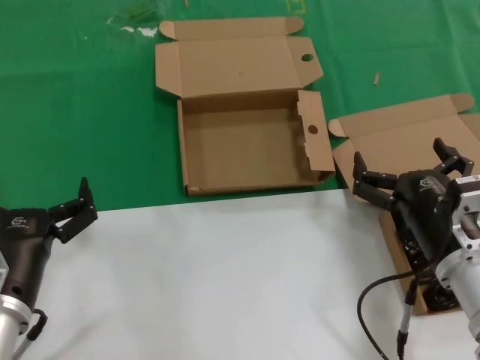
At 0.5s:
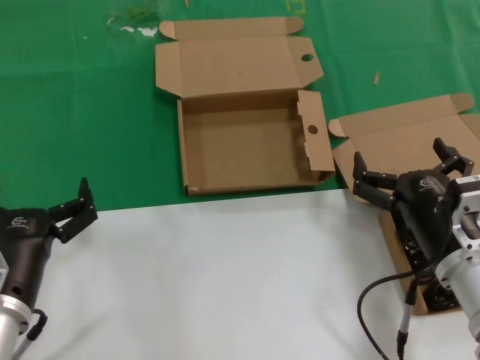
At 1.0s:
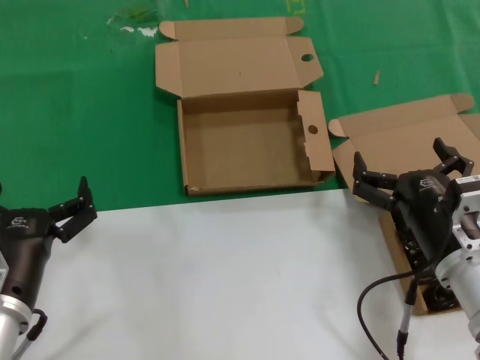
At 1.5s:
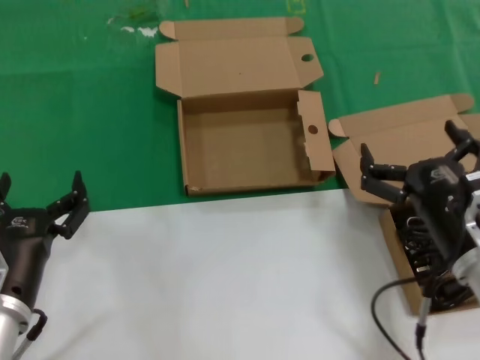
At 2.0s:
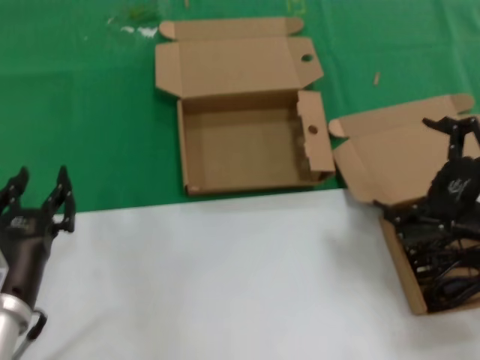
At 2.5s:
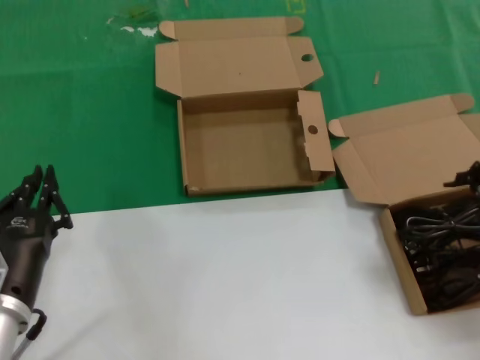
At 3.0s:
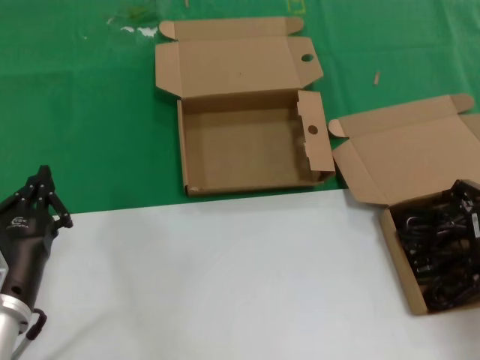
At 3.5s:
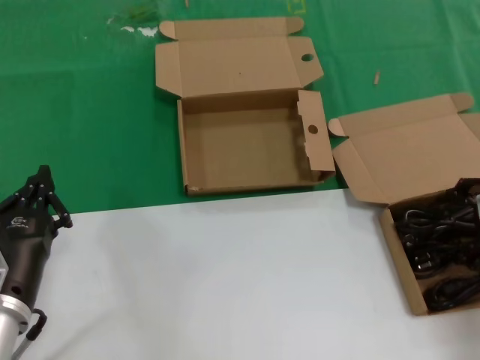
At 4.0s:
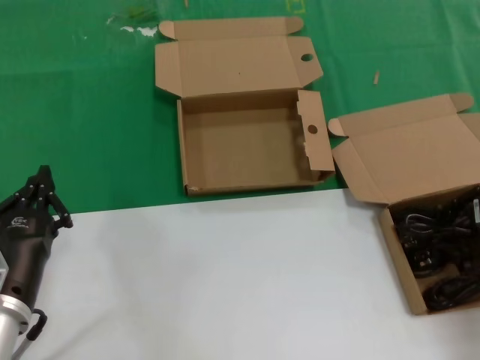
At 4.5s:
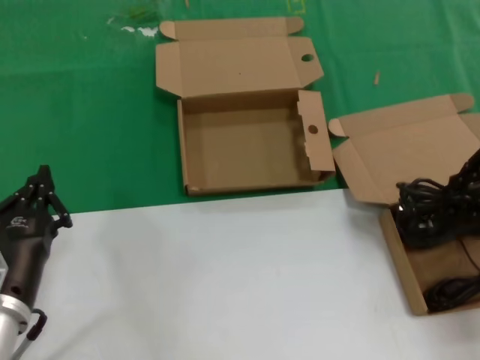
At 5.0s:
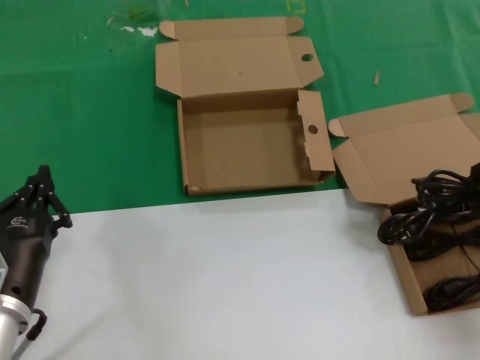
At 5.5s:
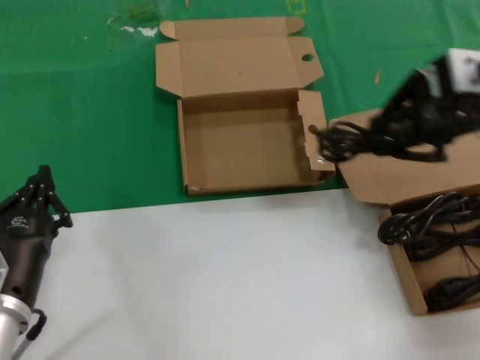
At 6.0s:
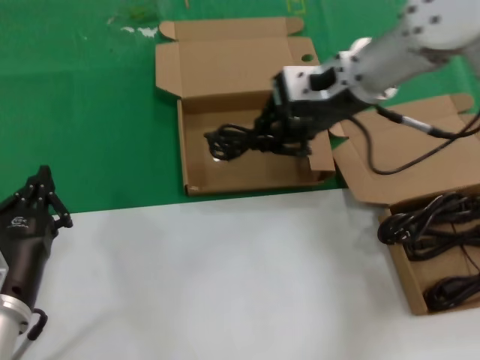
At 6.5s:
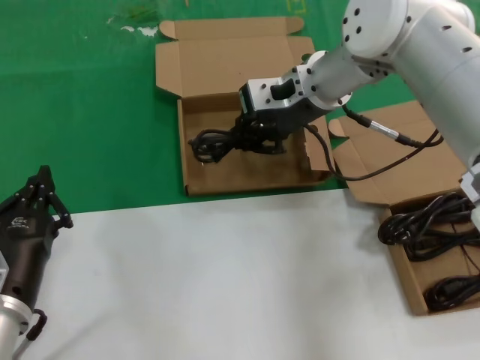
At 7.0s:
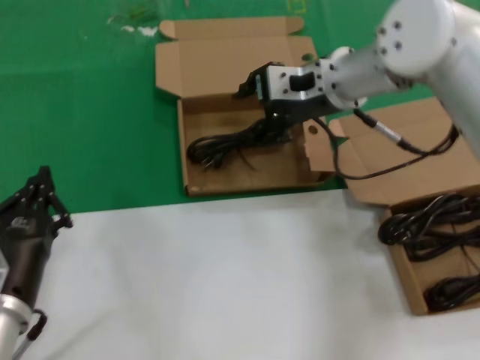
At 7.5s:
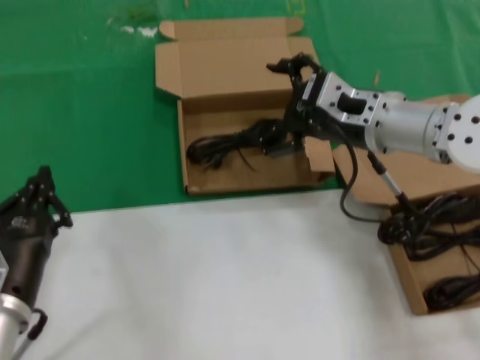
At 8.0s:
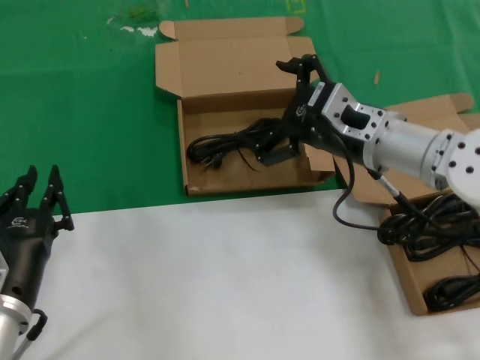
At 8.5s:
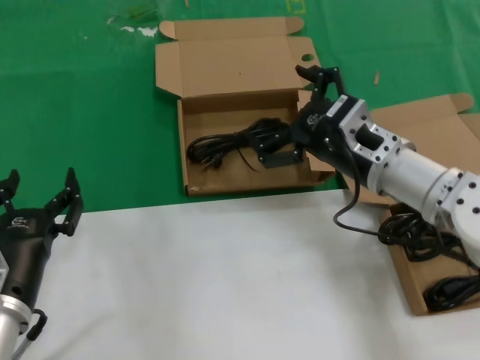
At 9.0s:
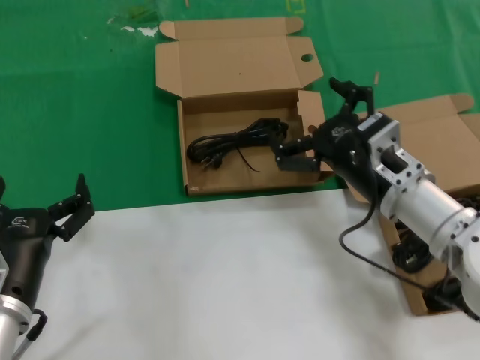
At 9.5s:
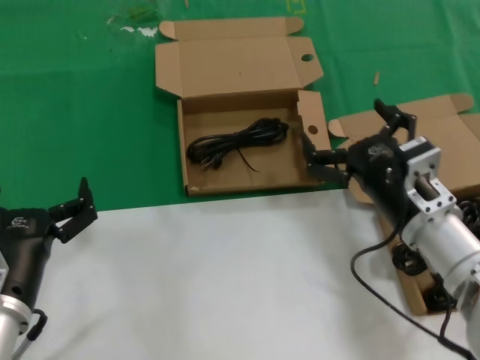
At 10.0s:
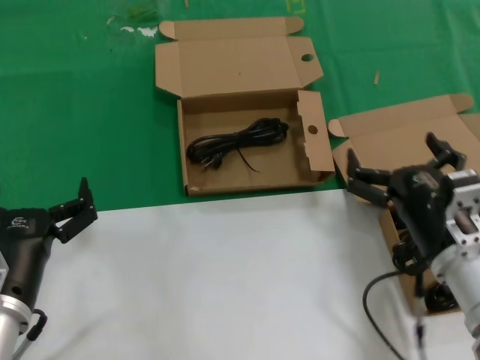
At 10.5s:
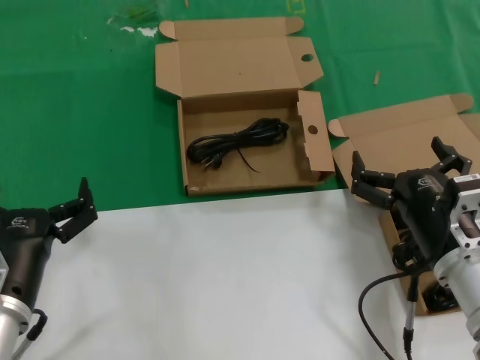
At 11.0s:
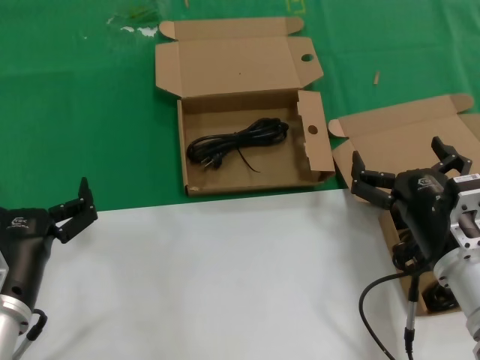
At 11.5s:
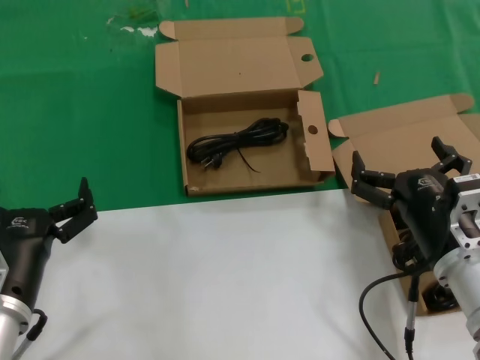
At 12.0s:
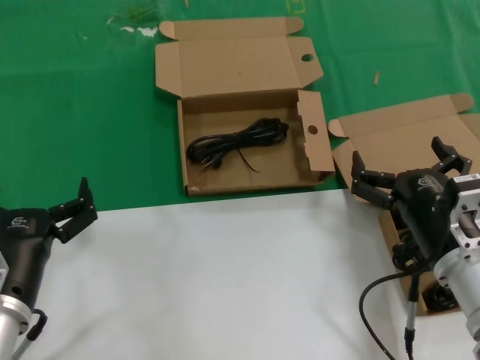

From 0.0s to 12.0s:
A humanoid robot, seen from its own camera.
Task of the whole recording: take the parts from the box containing them and put them into an empty box.
Step, from 0.0s to 3.5s: Grasp the data cable.
Step, from 4.0s to 7.0s: Place the data cable in the another box.
From 0.0s to 2.0s: The right hand travels upward and to the right by about 15 cm.
From 2.0s to 4.0s: The right hand shifts about 15 cm forward and to the right.
From 4.0s to 6.0s: The right hand heads to the left, upward and forward, covering approximately 30 cm.
From 6.0s to 8.0s: The right hand travels downward by approximately 10 cm.
From 8.0s to 10.0s: The right hand heads backward and downward, covering about 15 cm.
From 10.0s to 12.0s: Both hands stay about where they are.

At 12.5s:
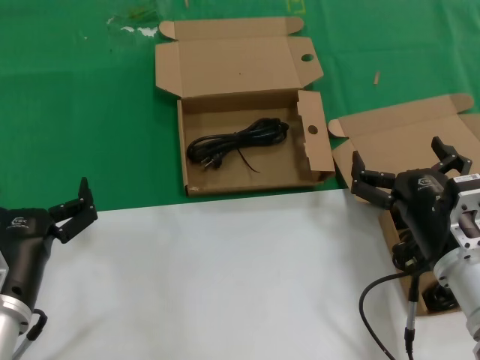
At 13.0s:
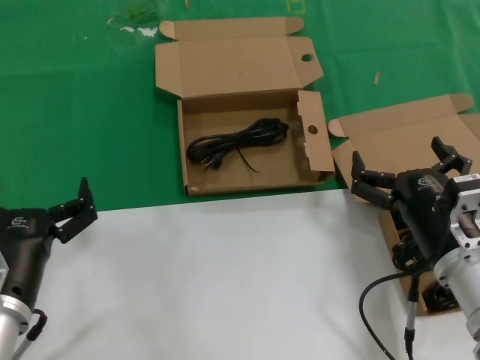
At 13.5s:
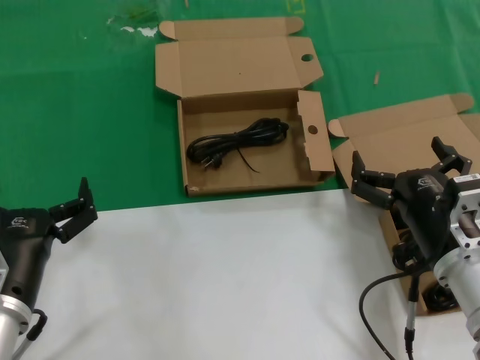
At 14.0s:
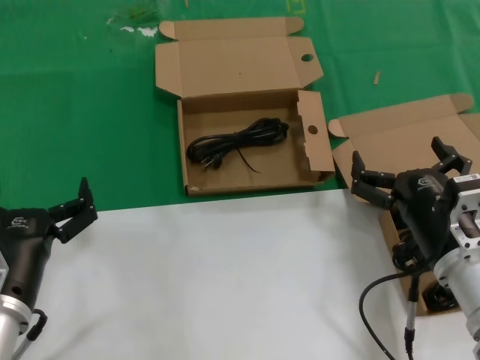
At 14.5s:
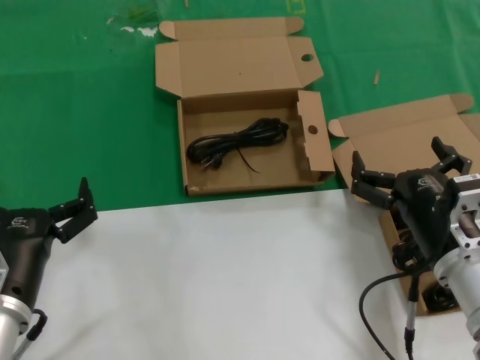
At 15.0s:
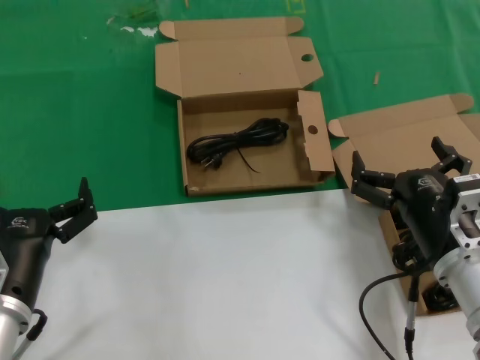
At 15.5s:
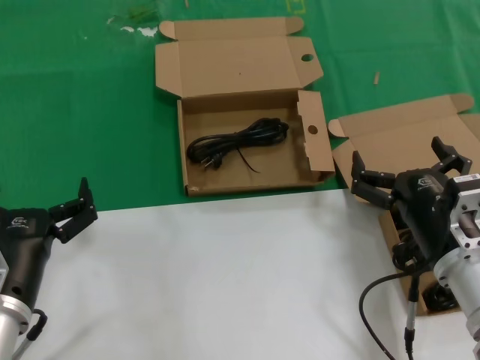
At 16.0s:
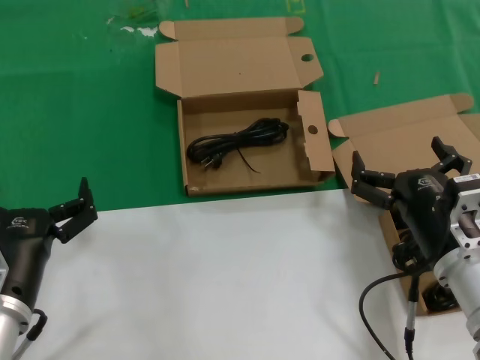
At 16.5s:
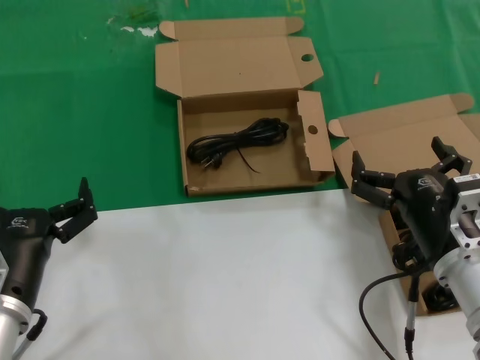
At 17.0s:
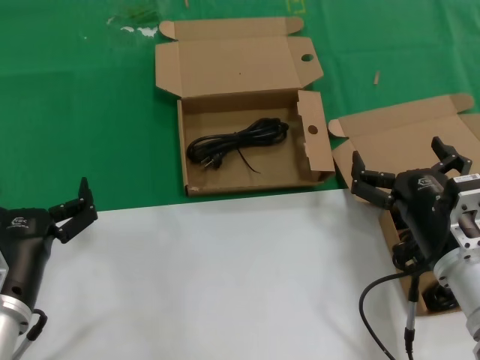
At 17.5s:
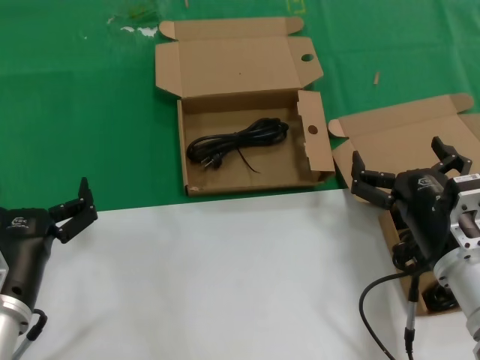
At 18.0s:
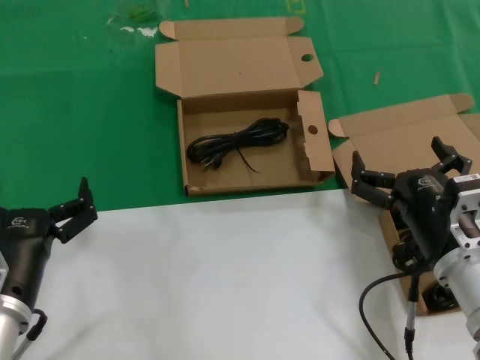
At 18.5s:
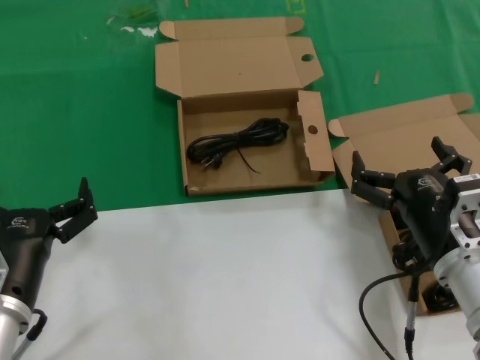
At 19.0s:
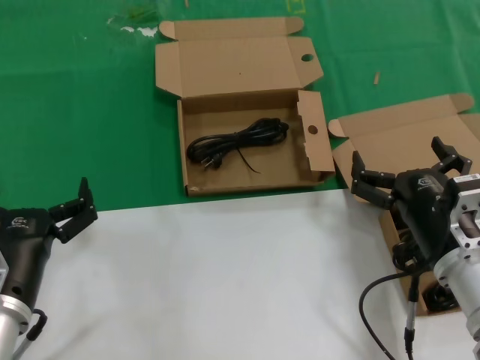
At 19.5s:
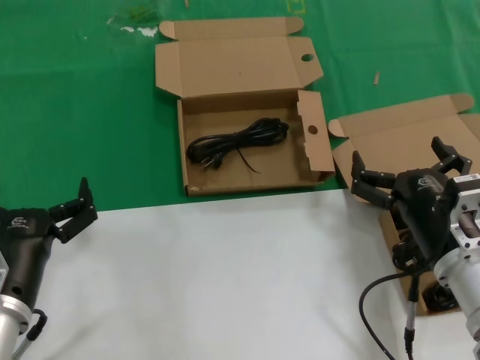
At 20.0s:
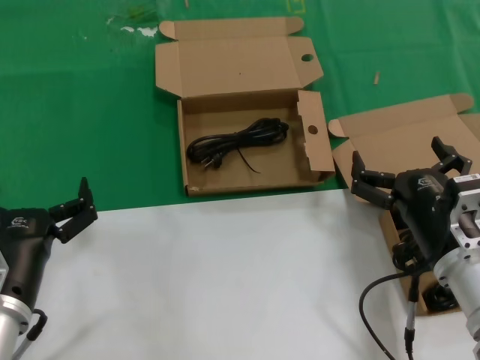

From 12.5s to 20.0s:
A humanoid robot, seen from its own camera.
Task of the whole recording: take the parts from the box containing them and put them into an empty box.
From 12.5s to 20.0s: Both hands stay put.

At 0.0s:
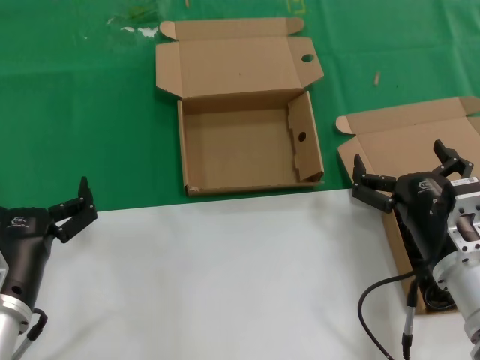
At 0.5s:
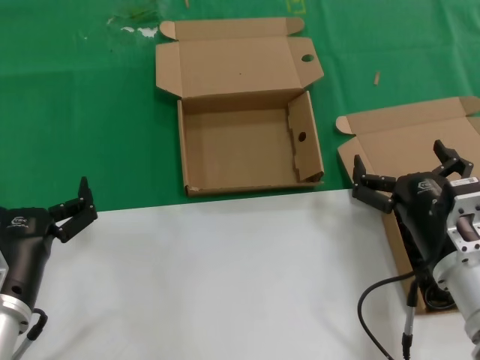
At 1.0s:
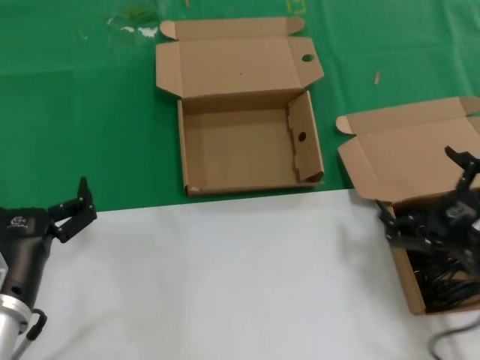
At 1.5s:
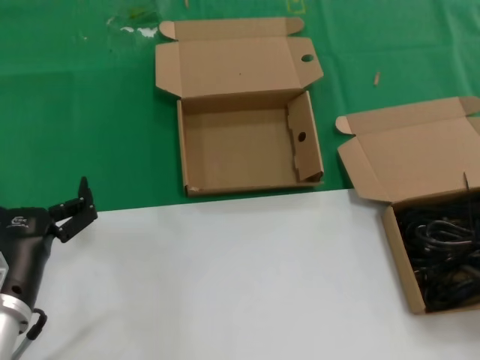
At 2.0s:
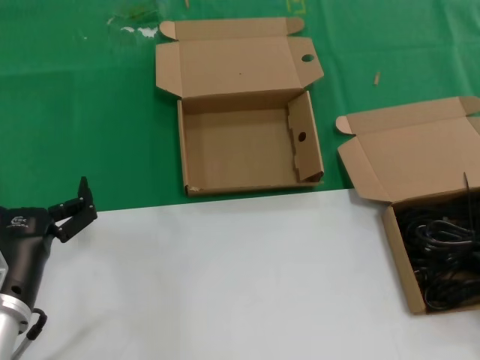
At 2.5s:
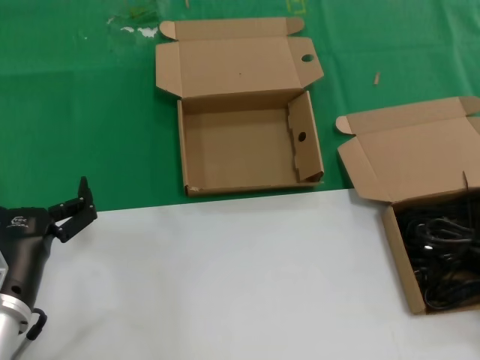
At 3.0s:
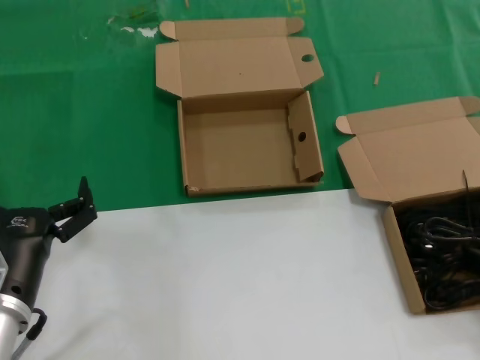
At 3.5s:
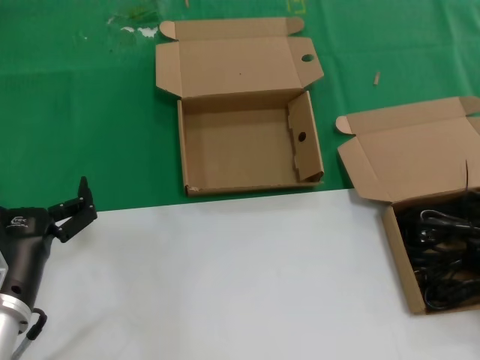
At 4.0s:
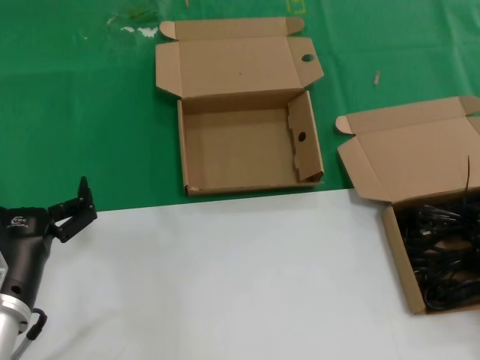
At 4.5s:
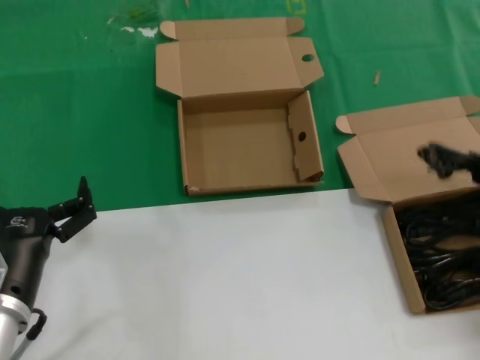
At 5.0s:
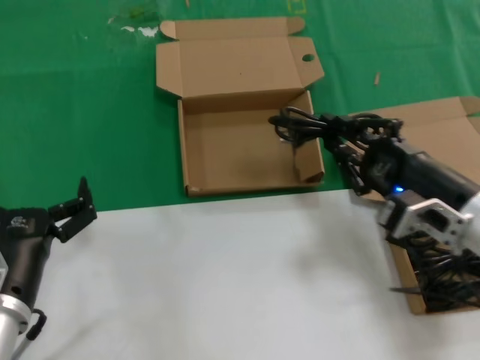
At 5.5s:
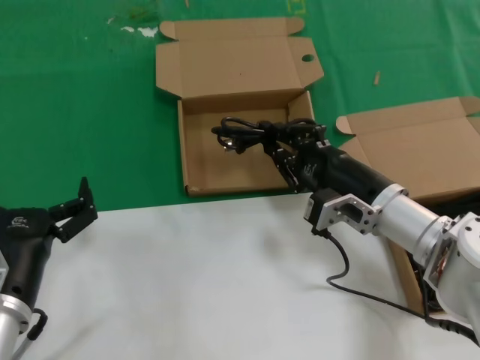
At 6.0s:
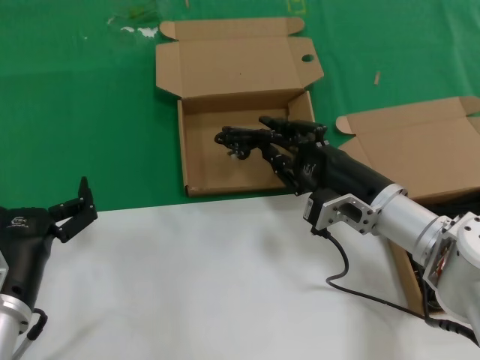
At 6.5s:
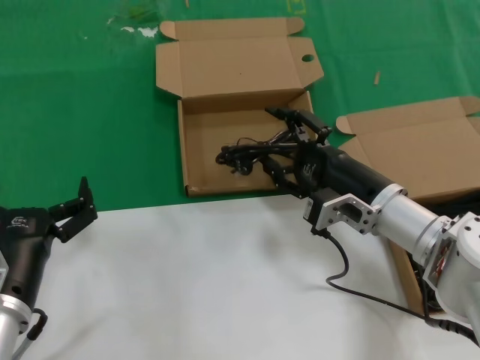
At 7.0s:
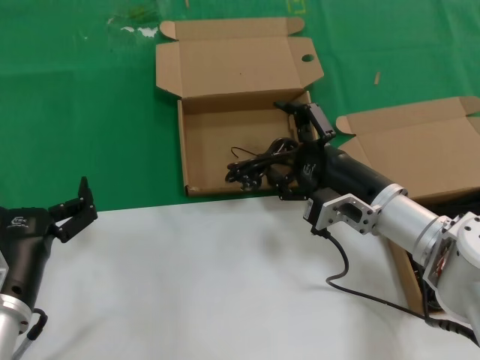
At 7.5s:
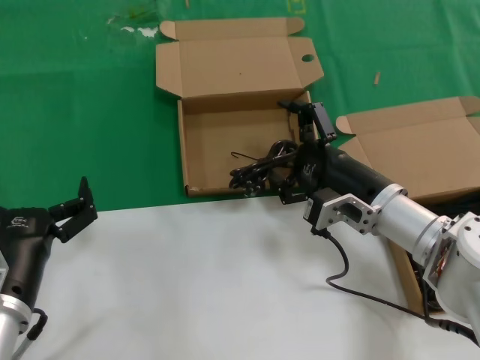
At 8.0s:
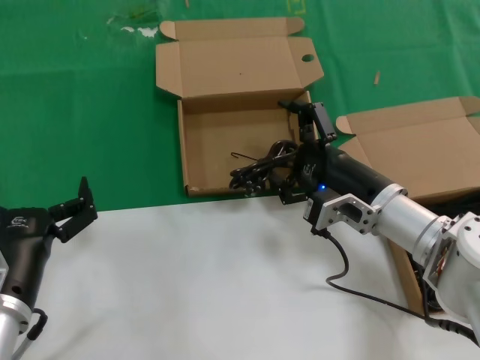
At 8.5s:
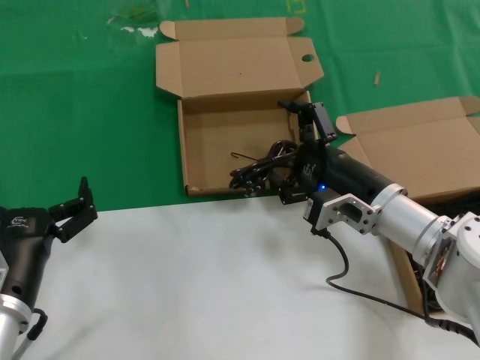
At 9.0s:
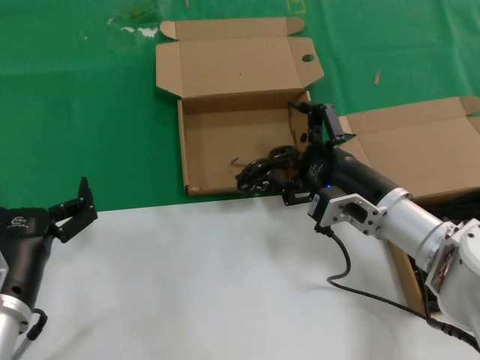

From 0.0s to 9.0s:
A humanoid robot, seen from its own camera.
Task of the whole recording: take the parts from the box containing them and put them into an empty box.
Step, from 0.0s to 4.0s: Grasp the data cable.
From 0.0s to 2.0s: The right hand heads to the right, covering approximately 20 cm.
From 2.0s to 4.5s: The hands move only a little.
From 4.5s to 7.0s: The right hand travels to the left and forward by some 25 cm.
From 7.0s to 9.0s: Neither hand changes place.
